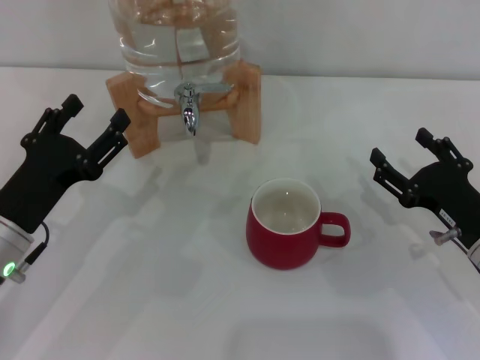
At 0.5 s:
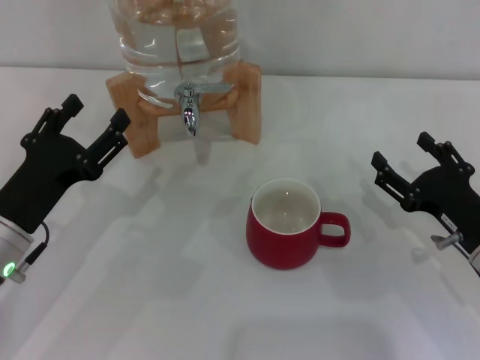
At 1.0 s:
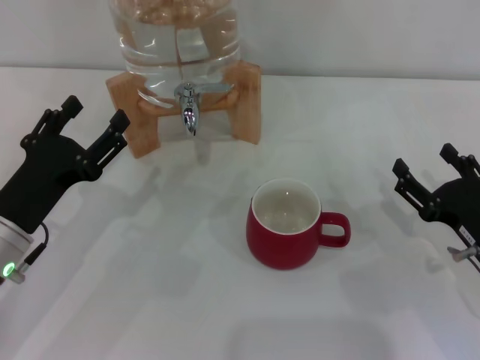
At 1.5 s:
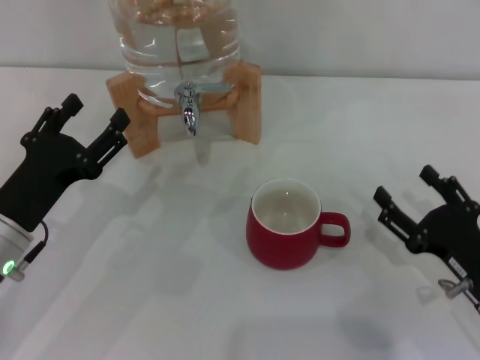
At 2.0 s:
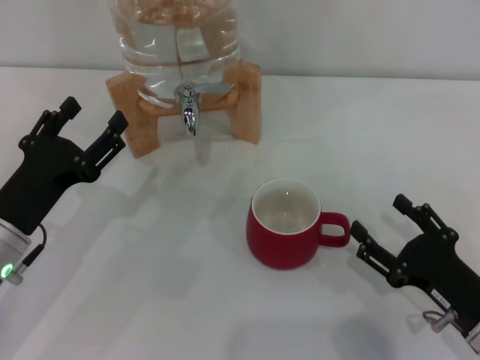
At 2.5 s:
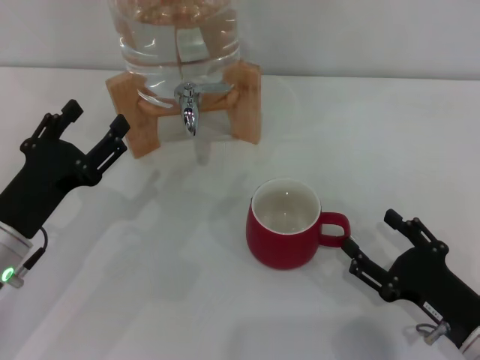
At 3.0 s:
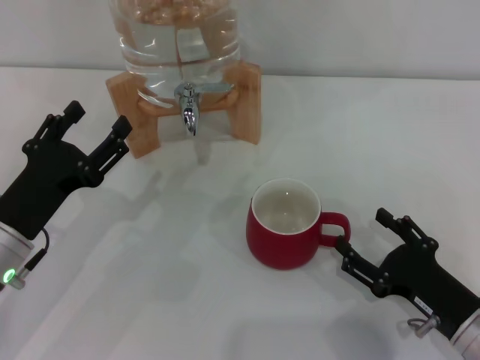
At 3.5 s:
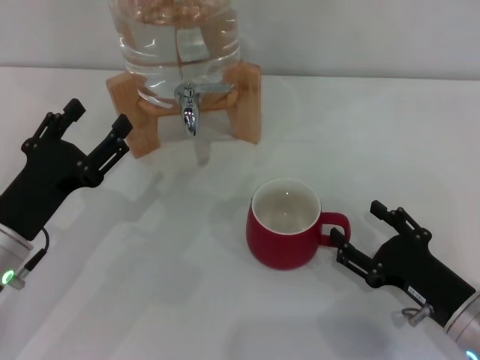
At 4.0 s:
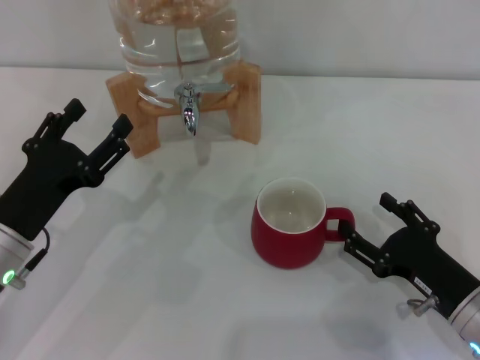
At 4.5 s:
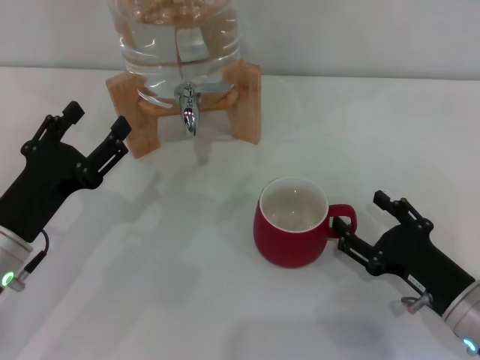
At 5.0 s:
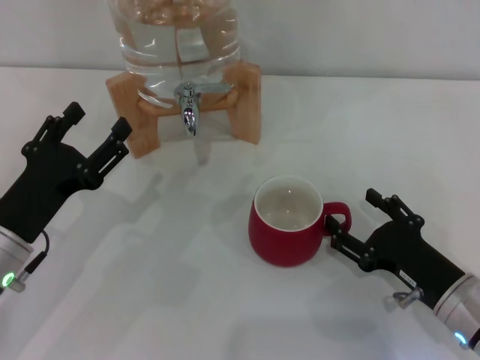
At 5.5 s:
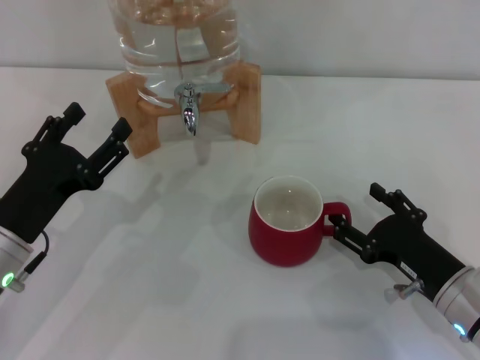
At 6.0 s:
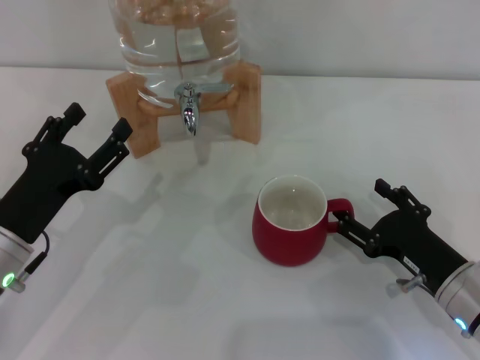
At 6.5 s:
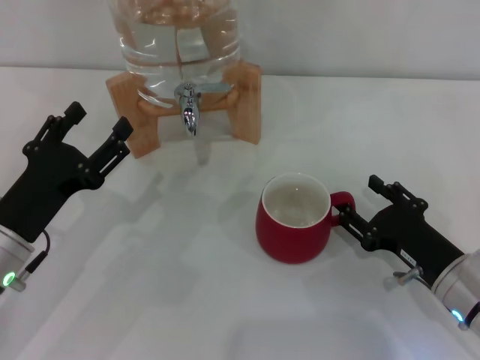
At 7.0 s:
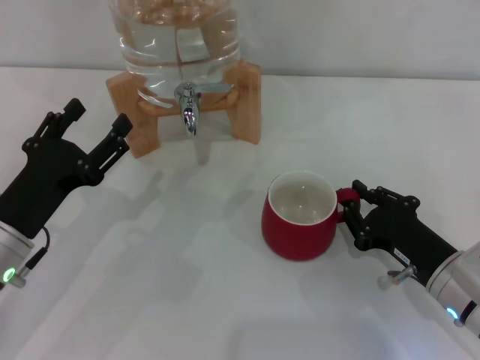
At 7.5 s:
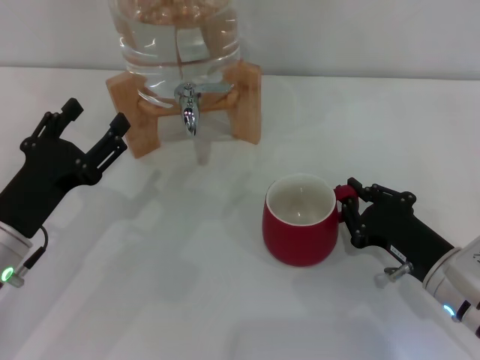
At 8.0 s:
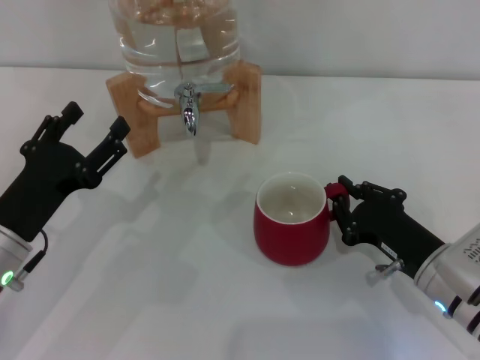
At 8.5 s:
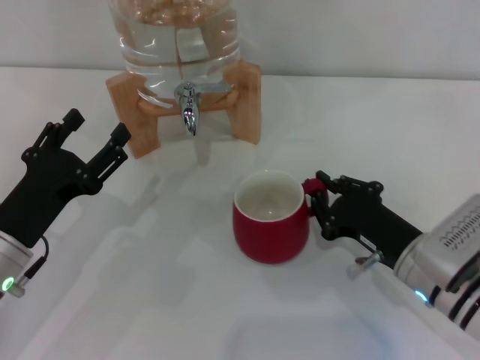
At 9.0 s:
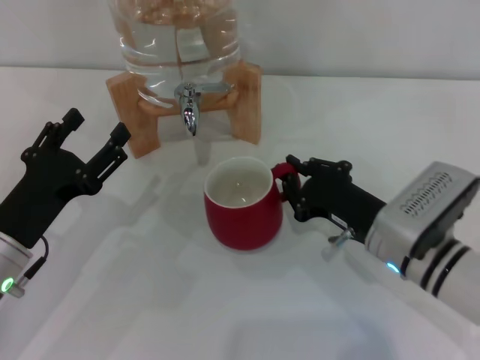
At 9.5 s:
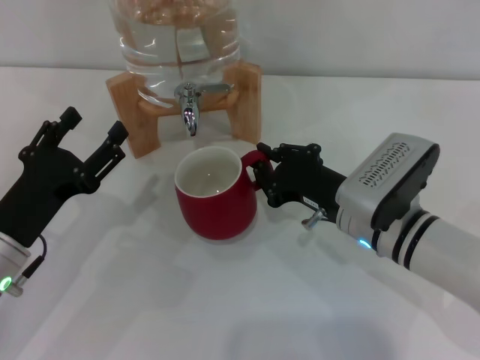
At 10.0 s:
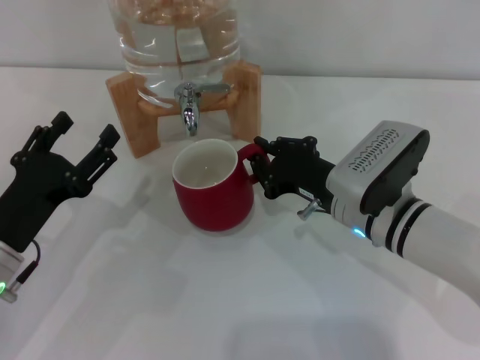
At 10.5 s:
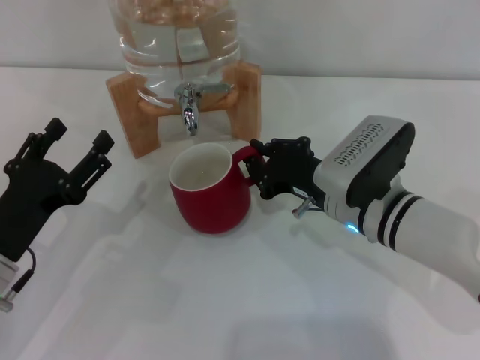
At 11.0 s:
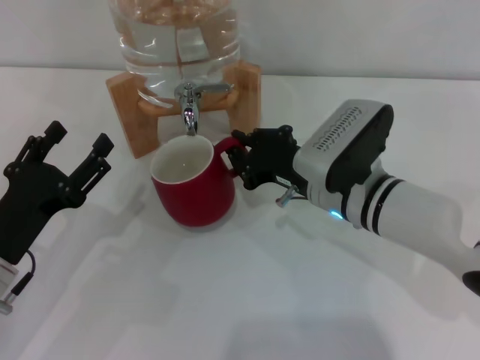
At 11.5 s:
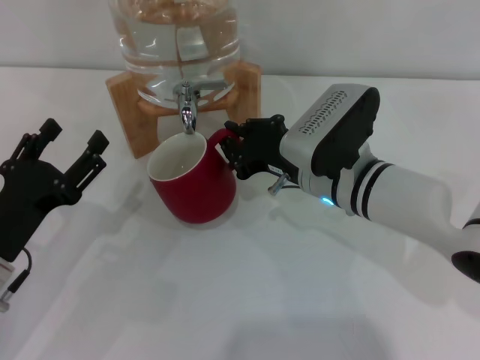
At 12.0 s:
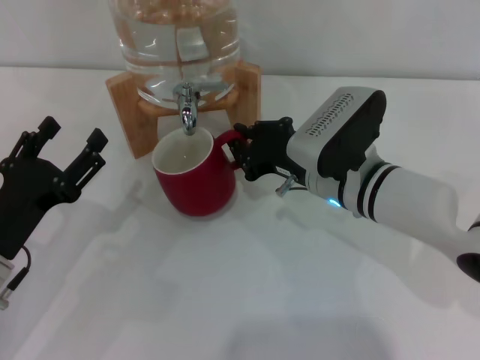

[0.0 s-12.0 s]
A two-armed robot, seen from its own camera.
Task of the whole recording: the right gripper pick up the red cup and place it horizontally under the faucet, the left gripper turn on the faucet to fill the cup, and then turn off the faucet.
0.0 to 2.0 s: The right gripper is displaced backward by approximately 5 cm.
2.0 to 6.0 s: The grippers make only small movements.
6.0 to 8.0 s: The right gripper closes its fingers.
8.0 to 10.0 s: The right gripper is displaced to the left and forward by about 10 cm.
10.0 to 12.0 s: The grippers move only a little.

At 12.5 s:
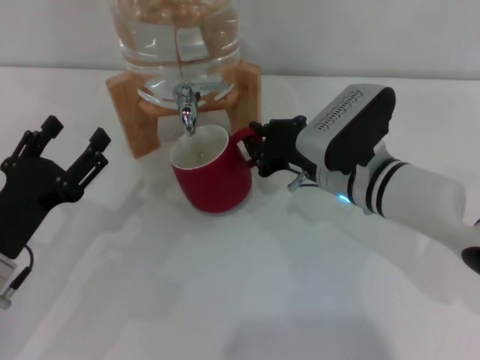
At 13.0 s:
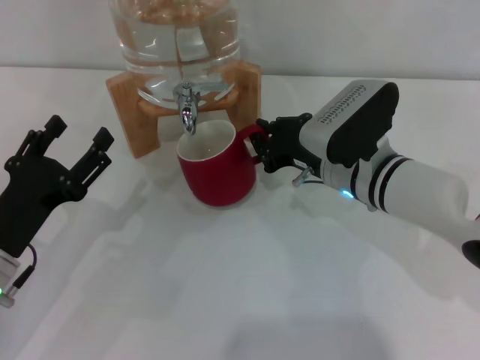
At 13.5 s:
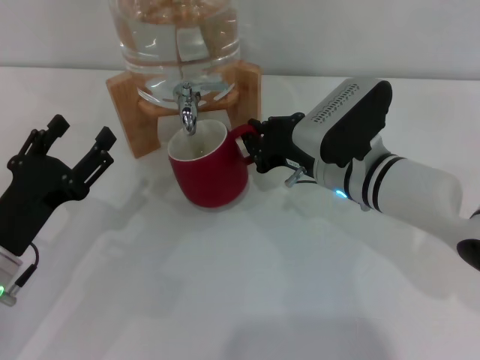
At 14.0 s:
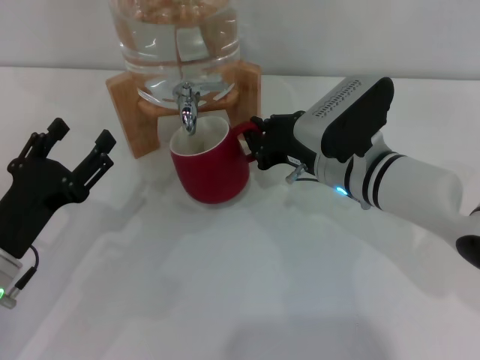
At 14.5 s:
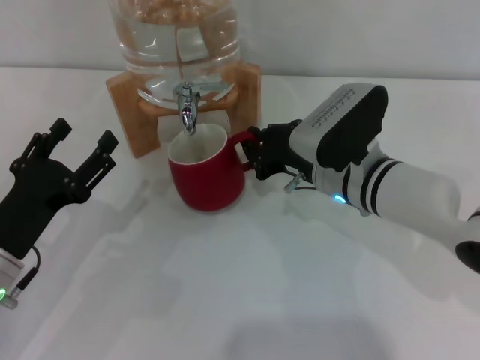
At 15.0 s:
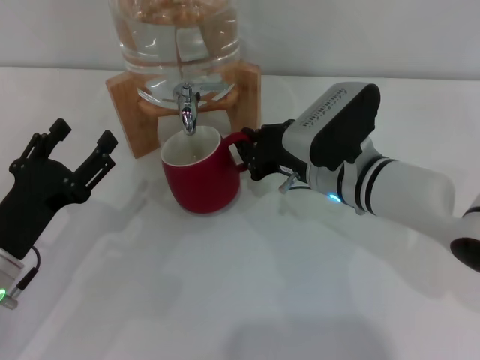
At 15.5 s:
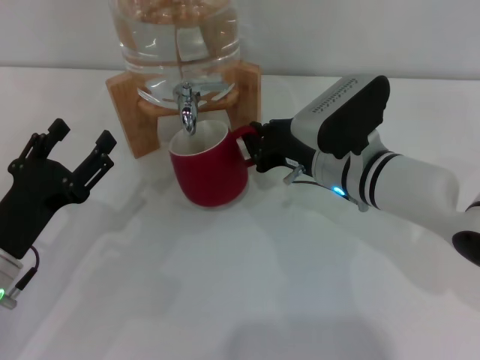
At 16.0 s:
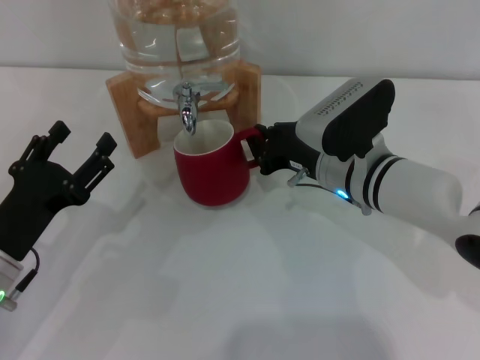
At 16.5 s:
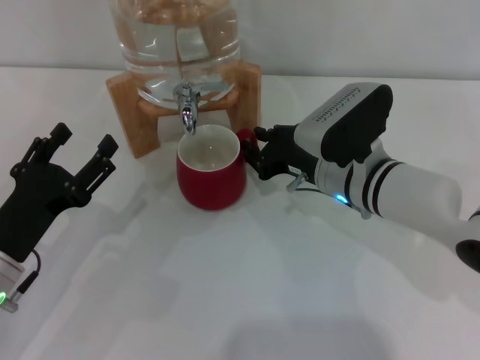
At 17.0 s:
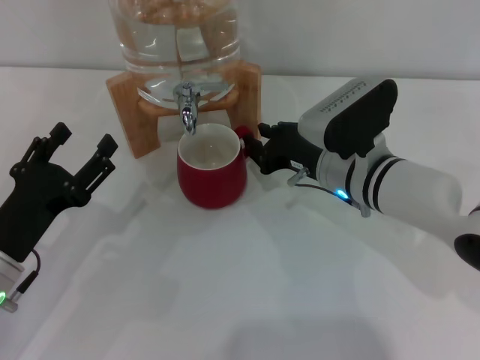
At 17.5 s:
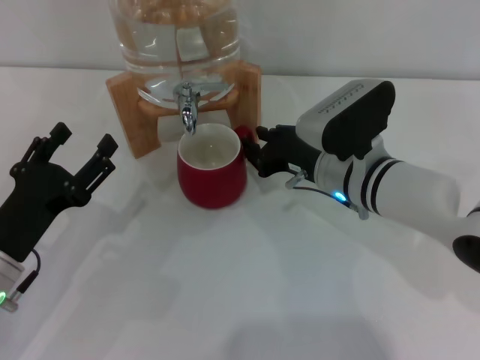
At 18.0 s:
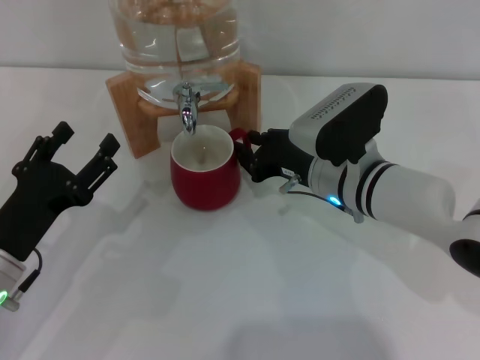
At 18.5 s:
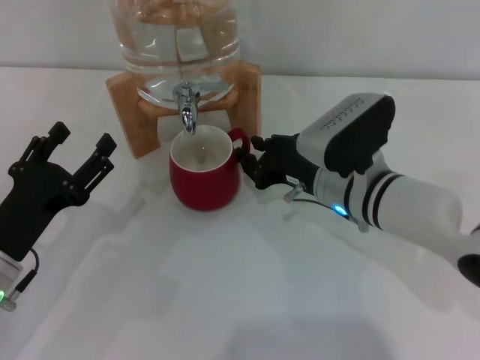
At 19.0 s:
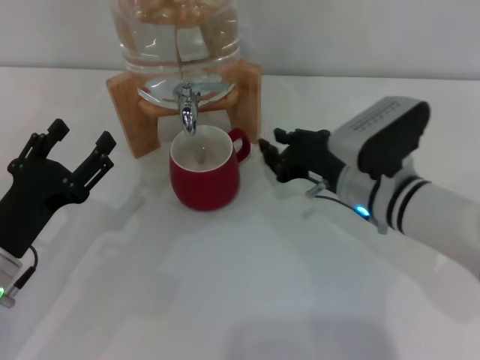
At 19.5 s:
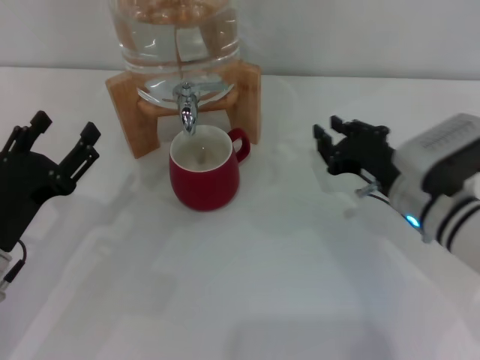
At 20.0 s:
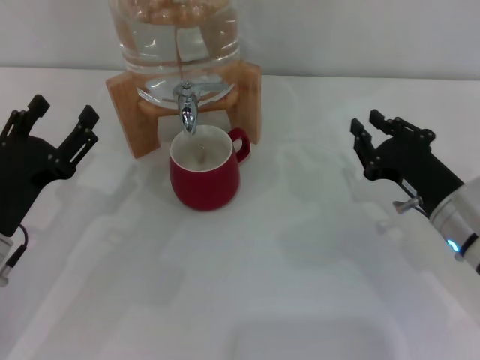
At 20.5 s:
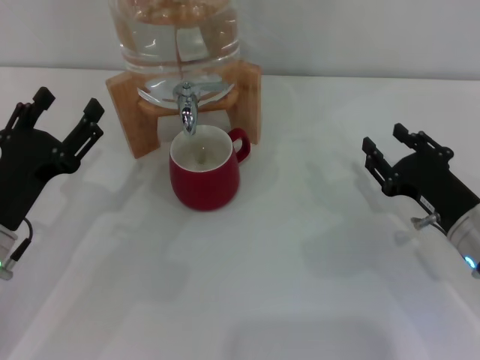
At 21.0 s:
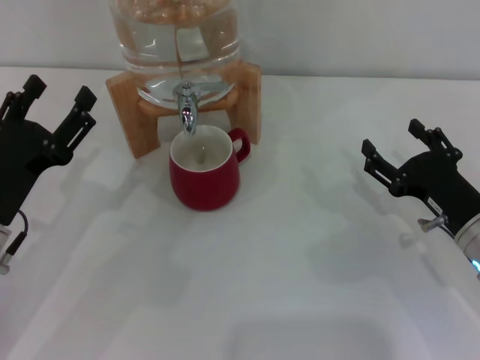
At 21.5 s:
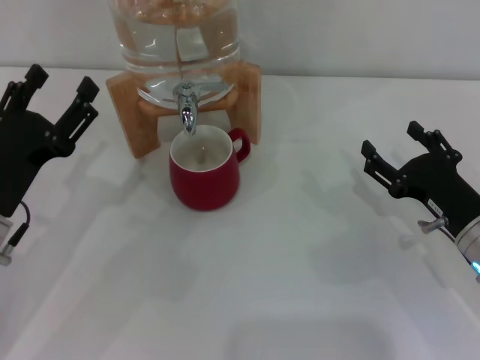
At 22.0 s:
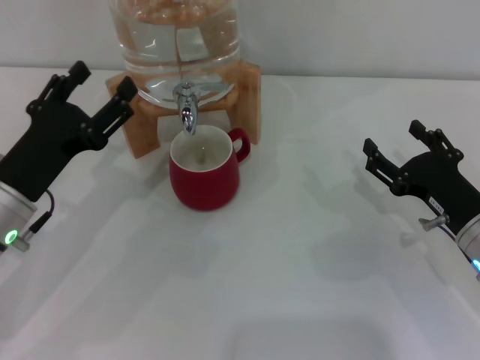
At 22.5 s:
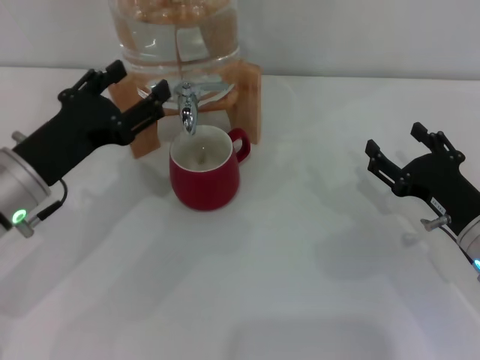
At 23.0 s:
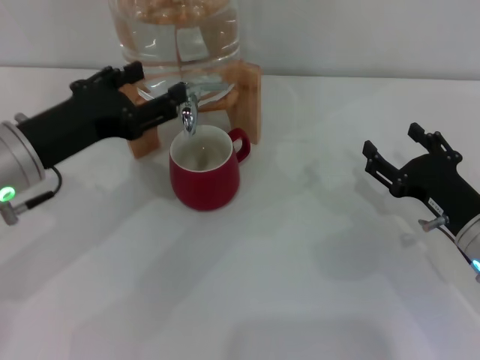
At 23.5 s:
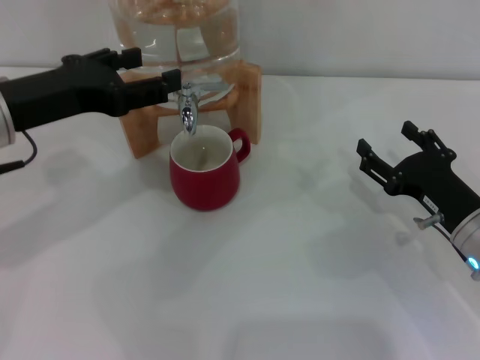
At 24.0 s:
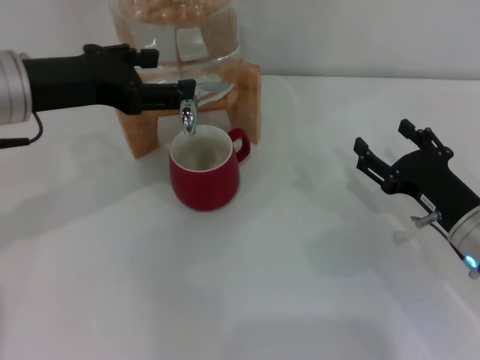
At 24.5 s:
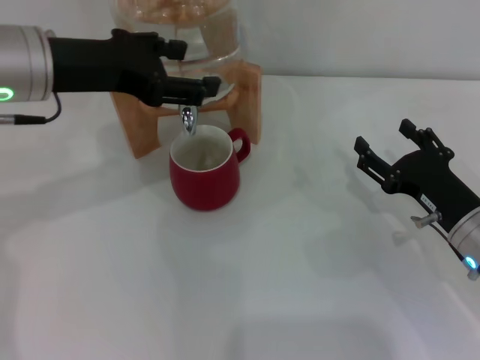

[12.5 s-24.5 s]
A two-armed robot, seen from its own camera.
Task of the whole recording: the right gripper pick up the red cup and place it horizontally under the faucet, the left gripper turn on the faucet to fill the cup, and then turn off the faucet.
Step, 12.5 to 18.5 s: Move the cup beneath the water dispenser nozzle with the right gripper.
12.5 to 14.5 s: The two grippers keep their place.
14.5 to 16.5 s: The two grippers keep their place.
16.5 to 18.5 s: The two grippers keep their place.
18.5 to 20.5 s: The right gripper moves to the right and backward, roughly 15 cm.
20.5 to 22.5 s: The right gripper opens; the left gripper travels upward by about 5 cm.
22.5 to 24.5 s: The left gripper shifts roughly 15 cm upward and forward.

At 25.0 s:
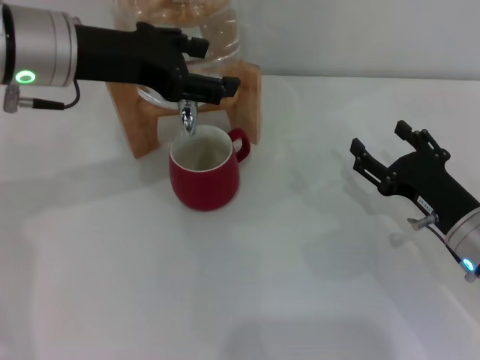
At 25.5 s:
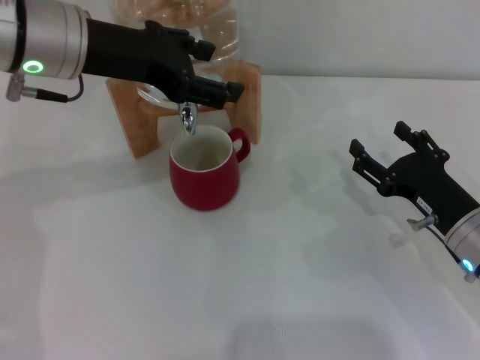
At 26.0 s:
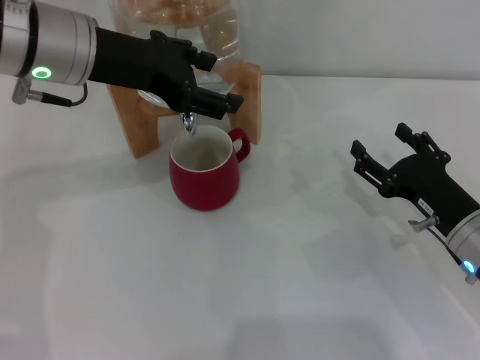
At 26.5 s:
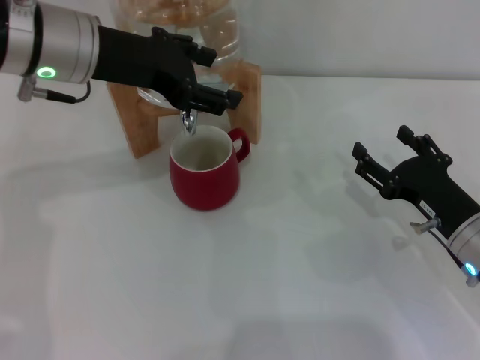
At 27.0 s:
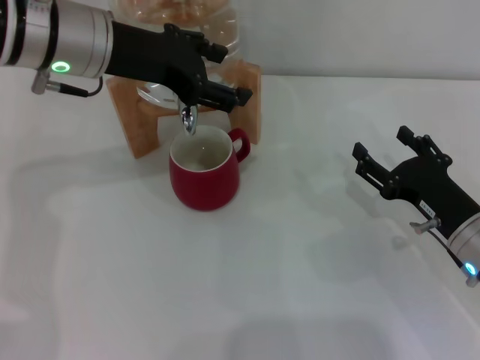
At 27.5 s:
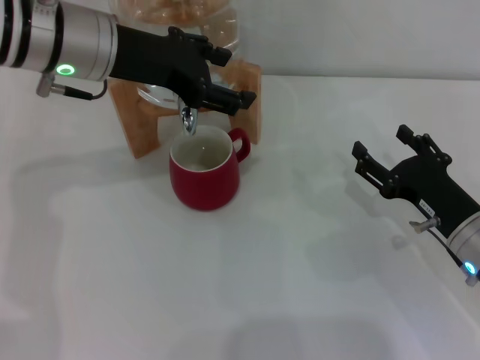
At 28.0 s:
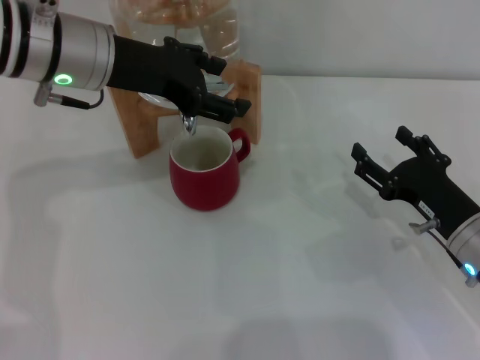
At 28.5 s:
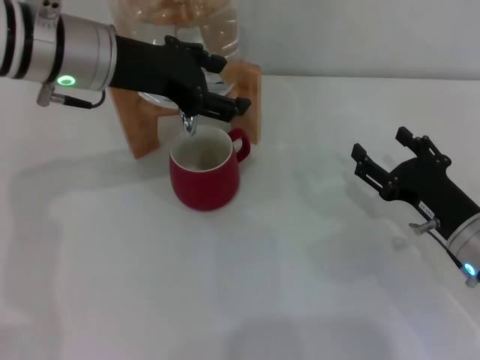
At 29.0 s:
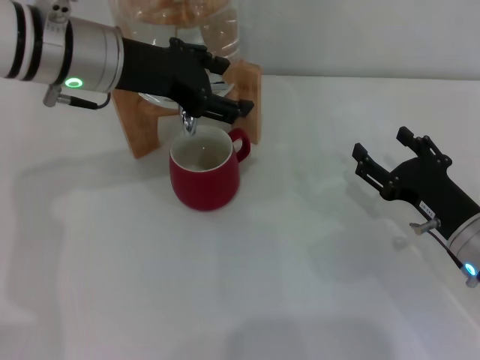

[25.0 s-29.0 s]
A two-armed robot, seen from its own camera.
Task of the whole recording: the right gripper pick up the red cup and place it horizontally under the faucet, the left gripper turn on the faucet to fill the cup, and then turn off the faucet.
25.0 to 29.0 s: The grippers move only a little.
